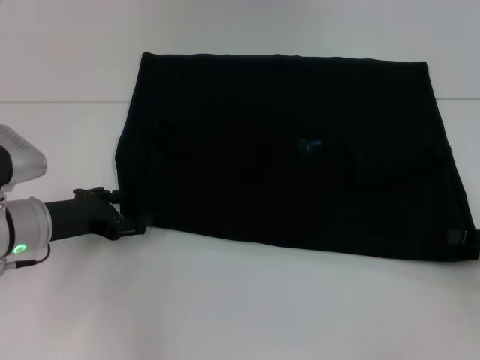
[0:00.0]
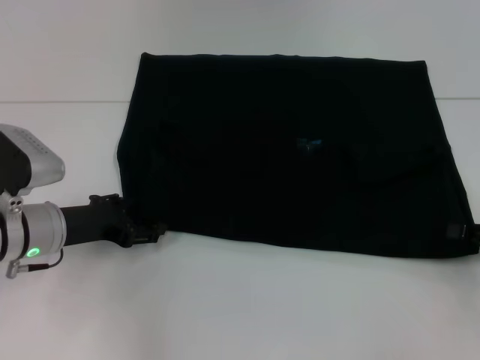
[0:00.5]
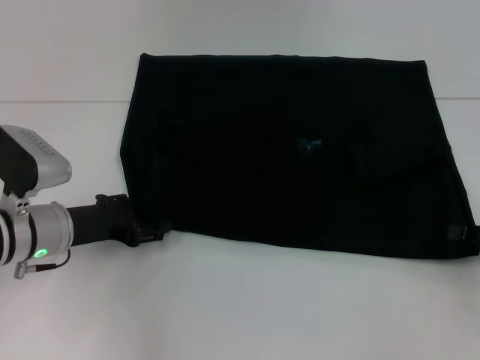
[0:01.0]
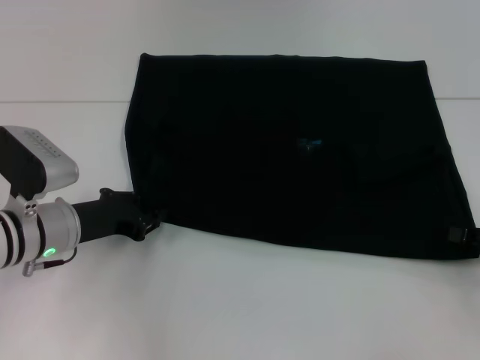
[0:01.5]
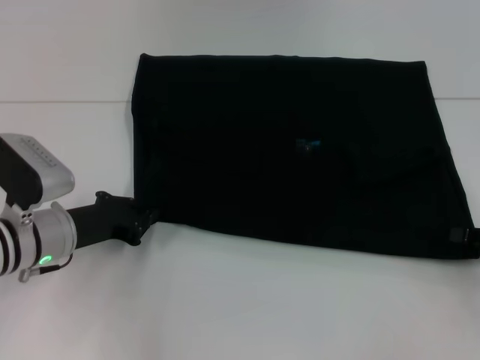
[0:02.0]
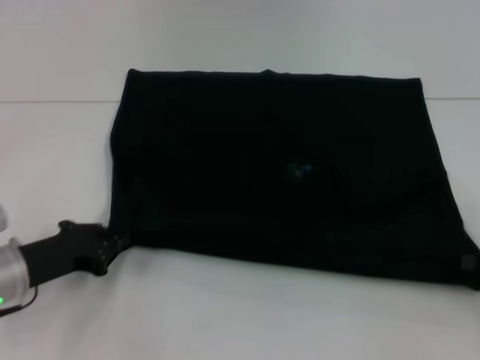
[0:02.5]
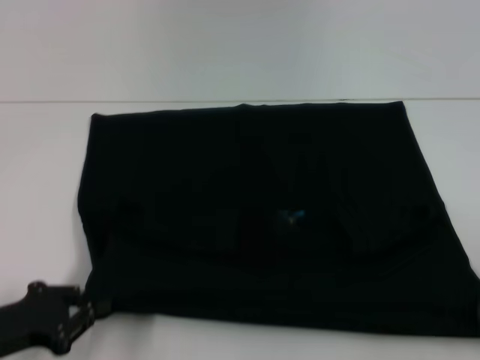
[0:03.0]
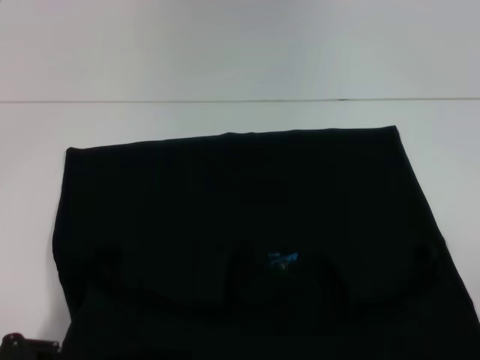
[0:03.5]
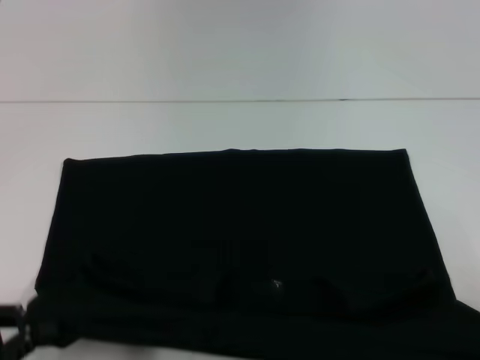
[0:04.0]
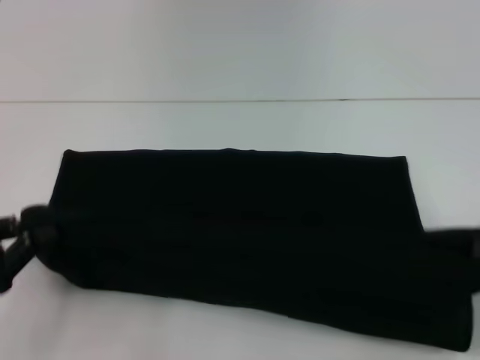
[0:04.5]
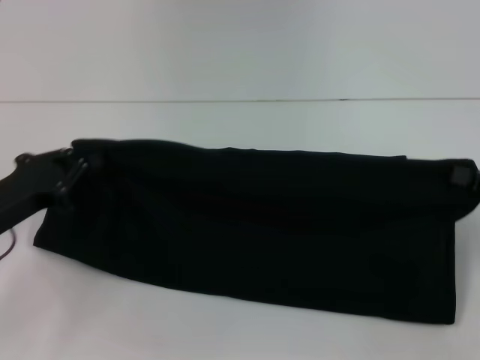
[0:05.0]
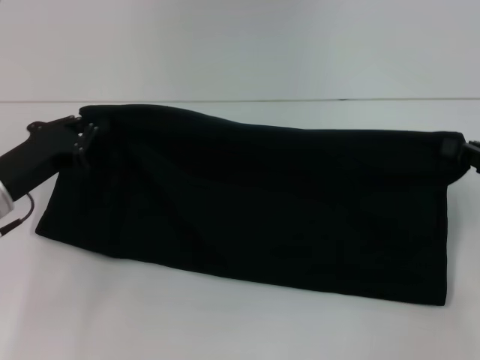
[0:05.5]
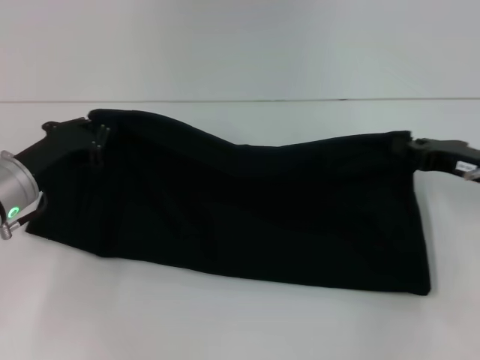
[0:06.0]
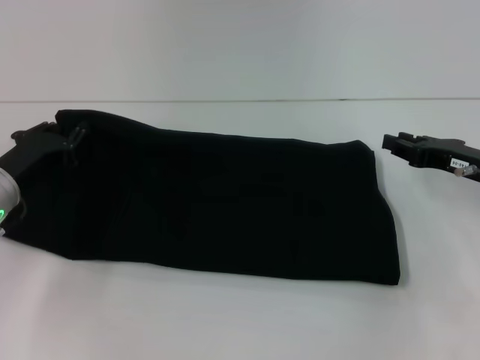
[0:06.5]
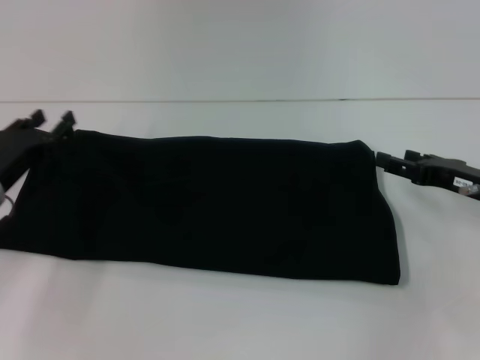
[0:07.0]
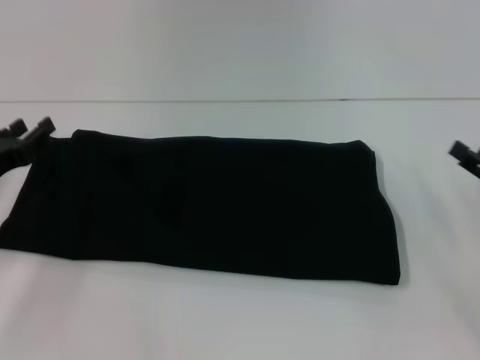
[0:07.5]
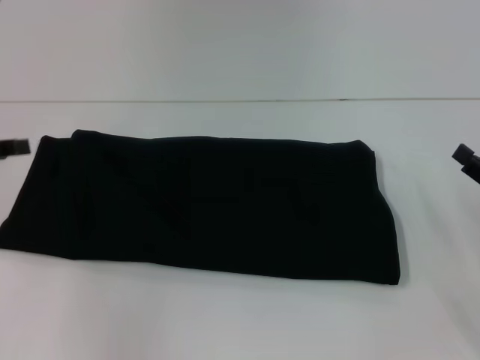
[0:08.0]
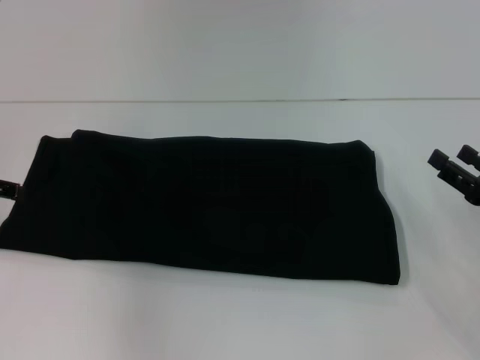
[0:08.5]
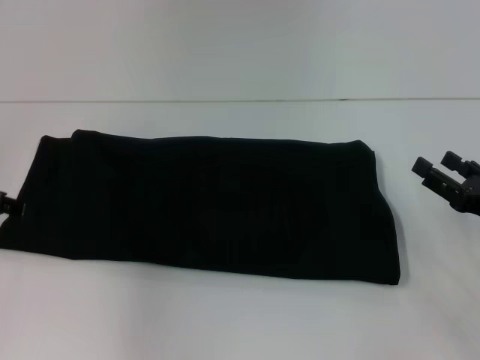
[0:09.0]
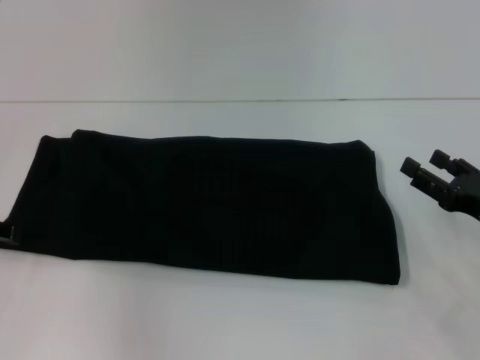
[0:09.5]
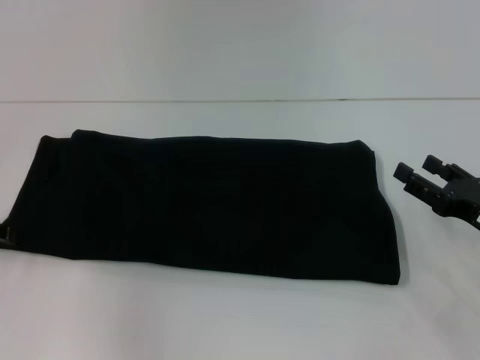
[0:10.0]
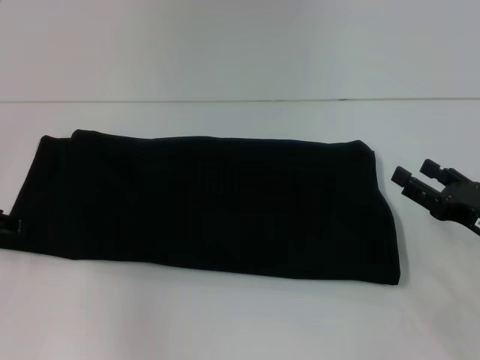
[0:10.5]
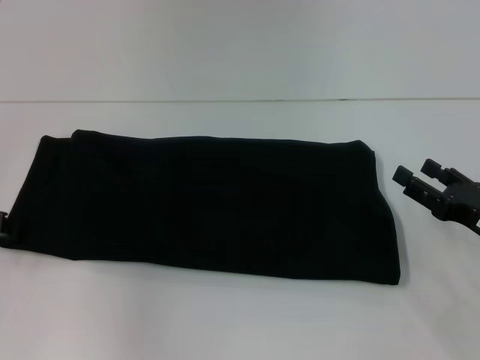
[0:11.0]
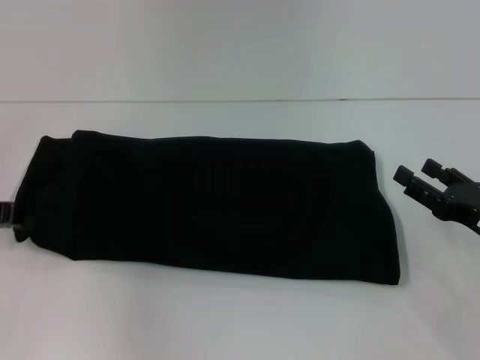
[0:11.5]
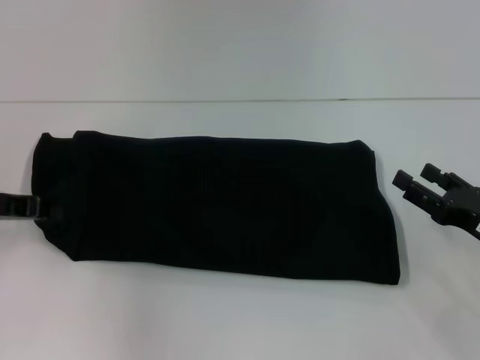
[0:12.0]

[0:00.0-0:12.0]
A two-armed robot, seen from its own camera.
Step, 0:00.0 to 0:03.5: Pull the clothes with your left hand.
Step, 0:00.0 to 0:03.5: Pull the clothes with your right hand.
Step, 0:04.0 to 0:07.0: Fold the clothes with your right hand.
0:00.0 to 0:02.0: The left gripper closes.
0:02.0 to 0:04.0: The right gripper moves backward, approximately 10 cm; the left gripper is displaced backward and to the left by approximately 20 cm.
0:04.0 to 0:06.0: The left gripper moves forward and to the right, approximately 20 cm. Meanwhile the right gripper moves forward and to the left, roughly 20 cm.
0:06.0 to 0:08.0: The left gripper shifts some 15 cm to the left and upward, and opens its fingers, while the right gripper goes about 10 cm backward, and opens.
0:10.0 to 0:12.0: The left gripper closes up.

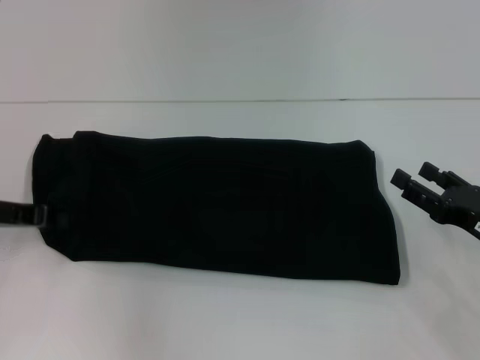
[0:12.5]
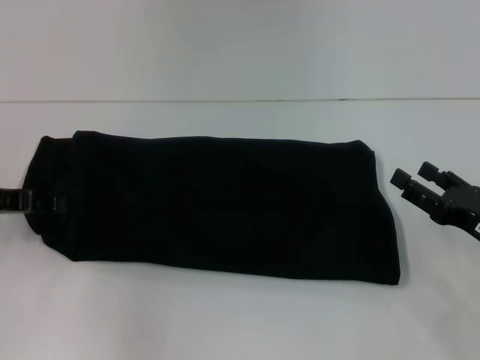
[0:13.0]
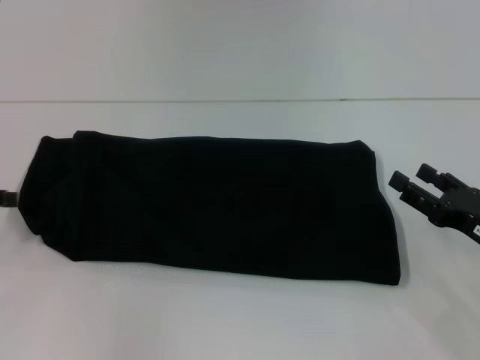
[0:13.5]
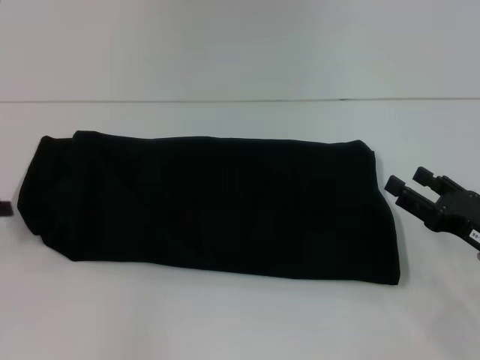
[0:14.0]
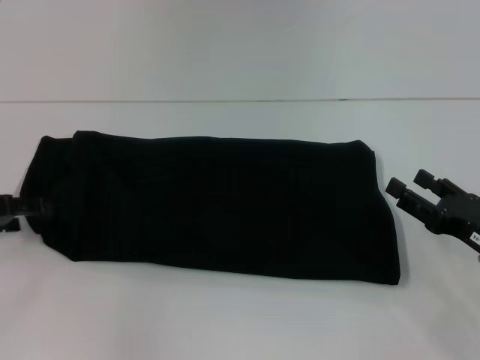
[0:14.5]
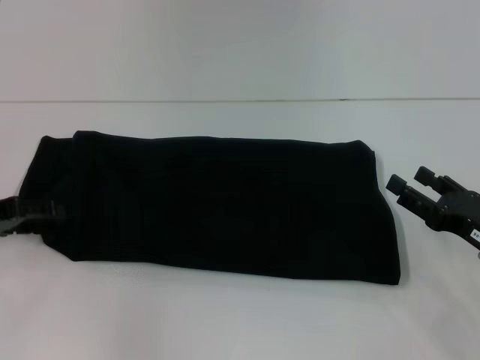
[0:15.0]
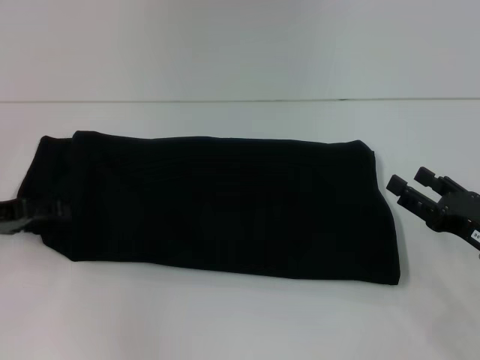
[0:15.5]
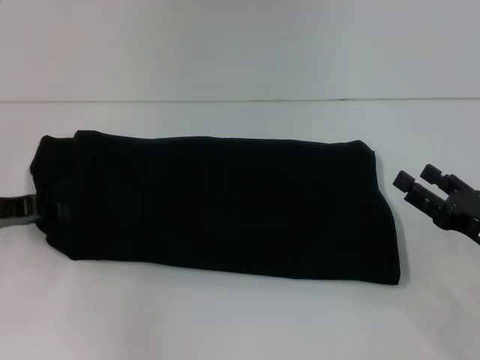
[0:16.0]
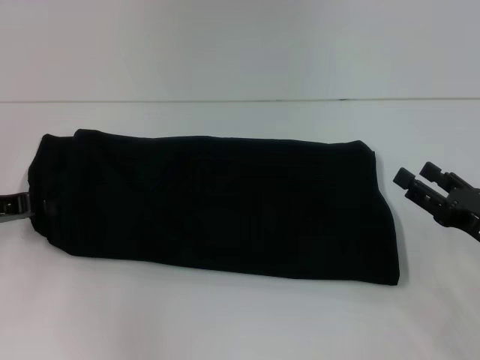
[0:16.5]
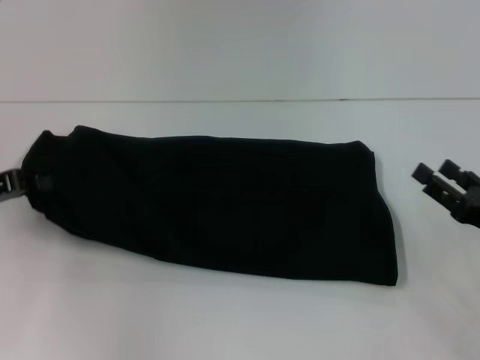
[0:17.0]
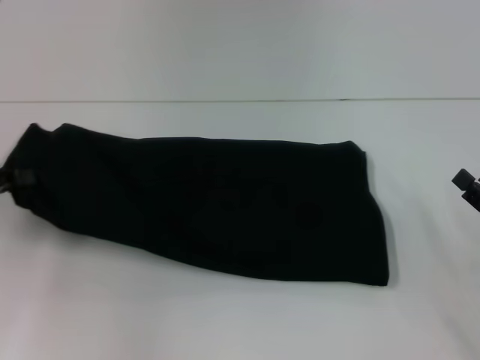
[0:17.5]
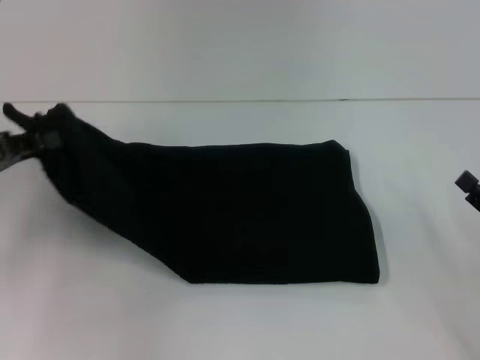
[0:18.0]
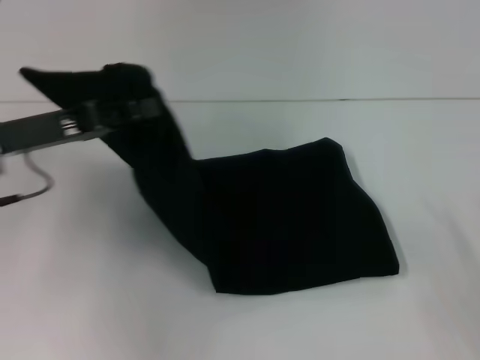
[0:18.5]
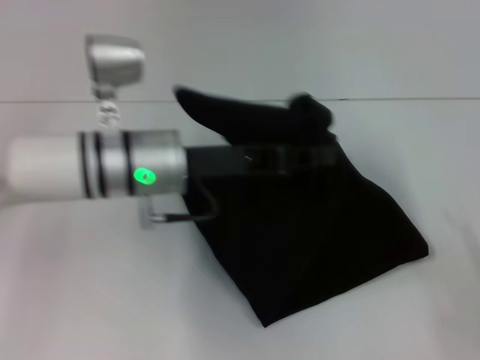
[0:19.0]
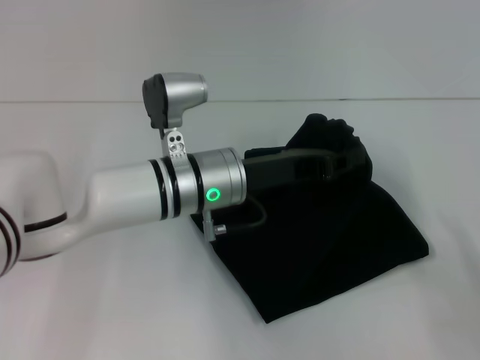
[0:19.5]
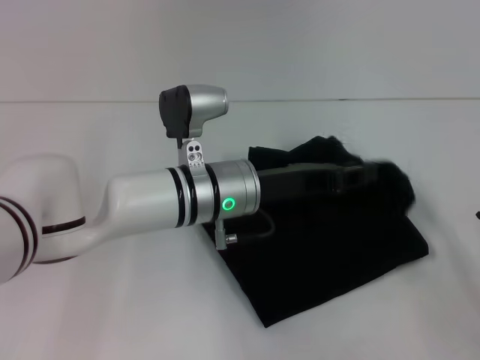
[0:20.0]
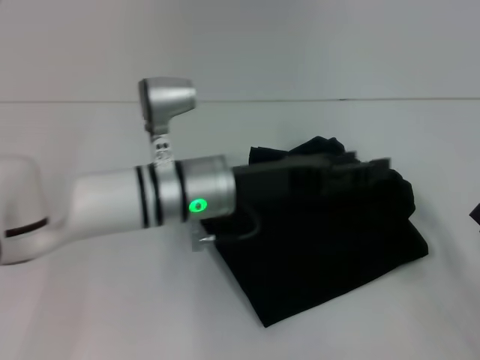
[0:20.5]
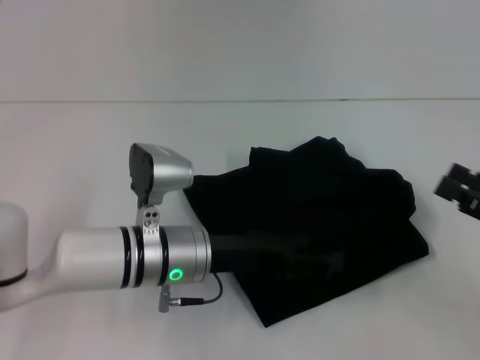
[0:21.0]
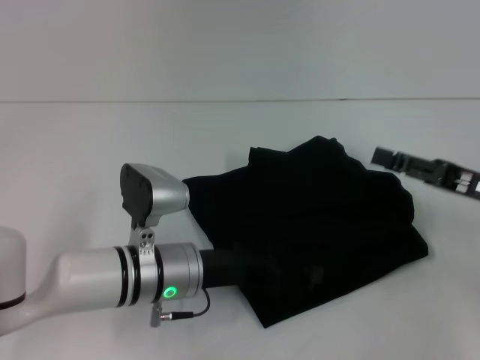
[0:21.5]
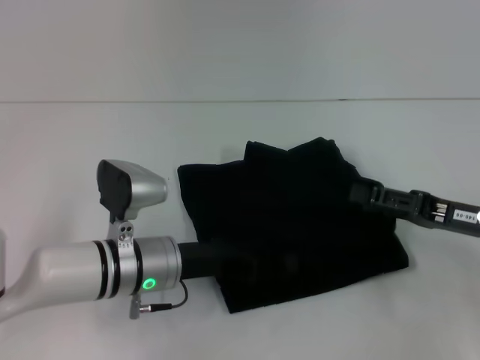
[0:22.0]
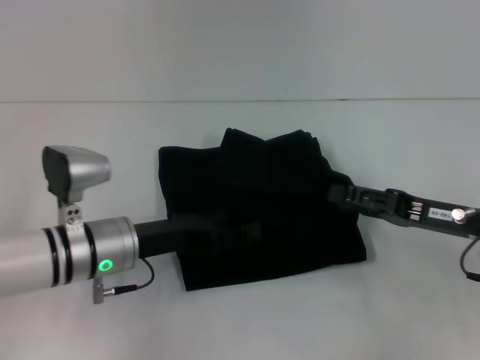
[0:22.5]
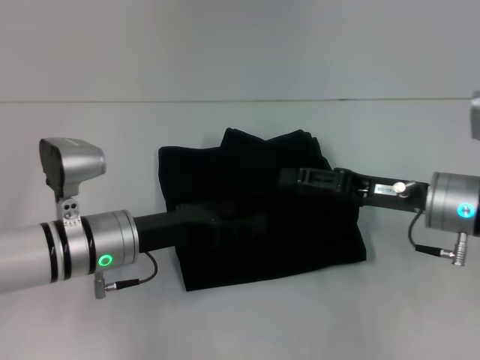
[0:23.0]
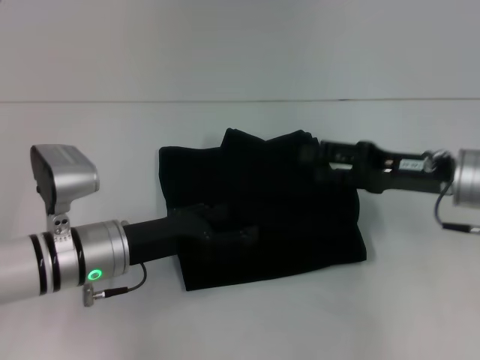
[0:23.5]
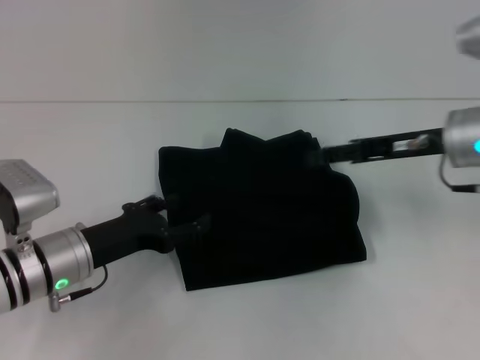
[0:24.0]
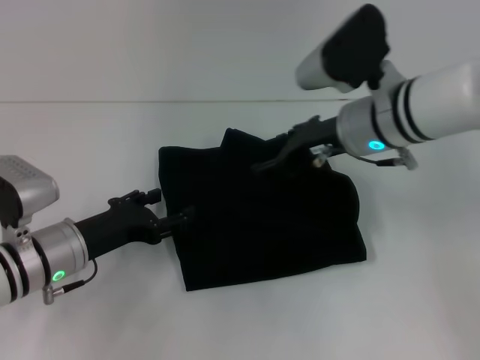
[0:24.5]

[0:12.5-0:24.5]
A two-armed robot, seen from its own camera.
Step, 0:12.5 to 0:20.5: Fold the clothes with your left hand.
0:12.5 to 0:14.5: The left gripper opens.
0:14.5 to 0:16.5: The left gripper closes.
0:16.5 to 0:18.5: The left gripper goes some 10 cm to the right and upward. The right gripper is displaced backward and to the right by about 10 cm.
0:18.5 to 0:20.5: The left gripper shifts approximately 20 cm to the right, and opens its fingers.
0:20.5 to 0:22.5: The left gripper heads to the left and downward, covering approximately 10 cm. Meanwhile the right gripper goes about 15 cm forward, to the left and upward.
0:22.5 to 0:24.5: The right gripper heads to the left, forward and upward, covering about 20 cm. Meanwhile the left gripper ends up some 5 cm from where it was.

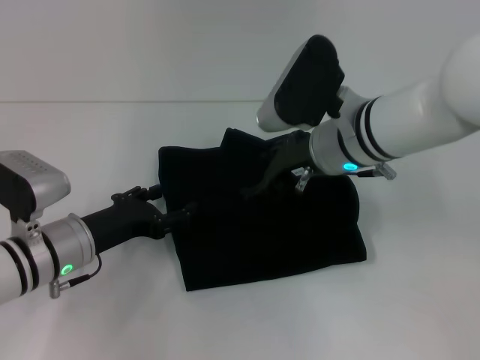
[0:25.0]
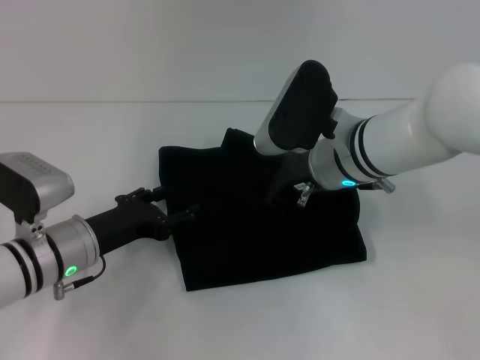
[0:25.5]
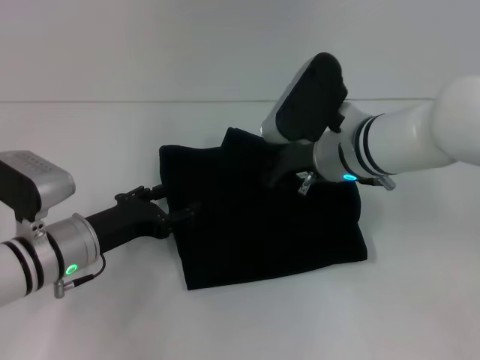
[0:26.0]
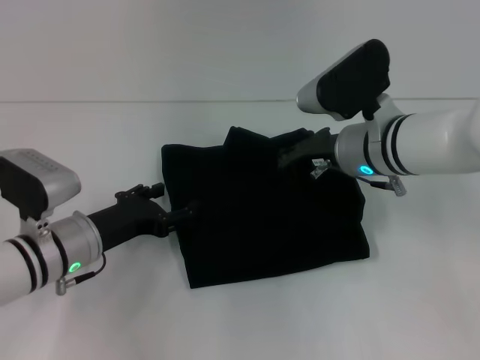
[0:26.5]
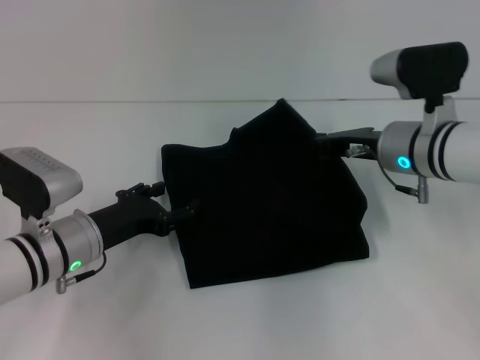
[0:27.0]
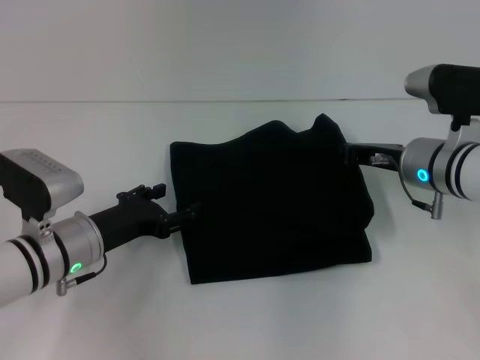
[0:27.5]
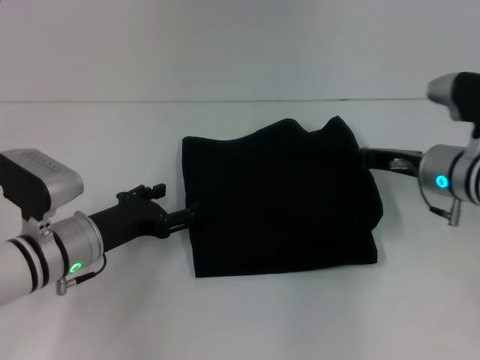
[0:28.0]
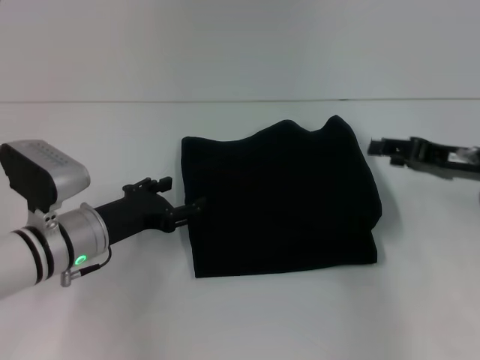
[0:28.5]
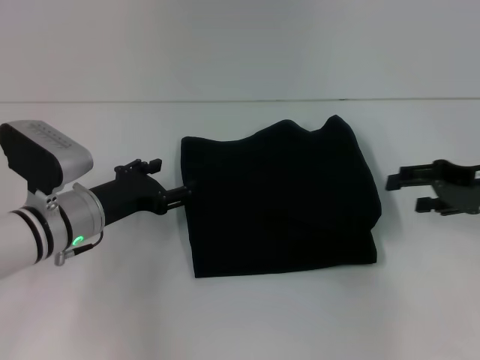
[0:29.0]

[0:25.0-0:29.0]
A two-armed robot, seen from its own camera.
0:25.0 to 0:27.0: The right gripper travels to the right by some 10 cm, and closes its fingers.
0:27.0 to 0:29.0: The right gripper shifts some 10 cm to the right, and opens.
